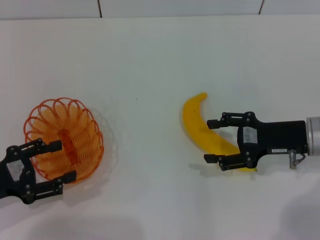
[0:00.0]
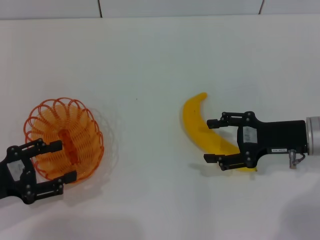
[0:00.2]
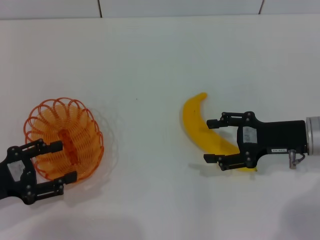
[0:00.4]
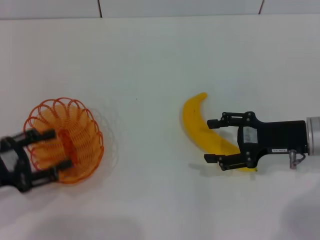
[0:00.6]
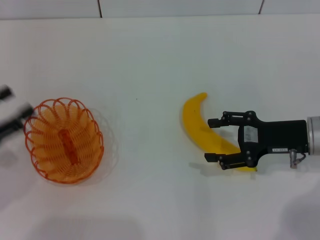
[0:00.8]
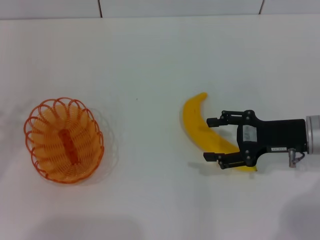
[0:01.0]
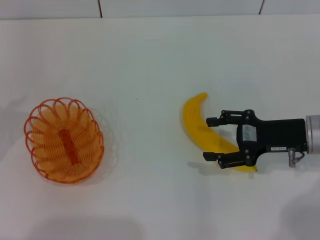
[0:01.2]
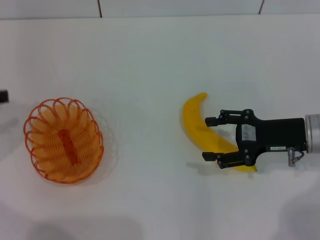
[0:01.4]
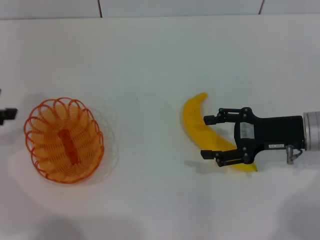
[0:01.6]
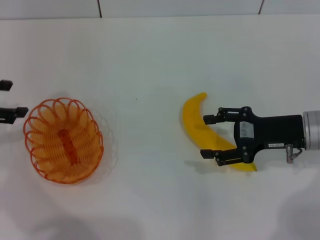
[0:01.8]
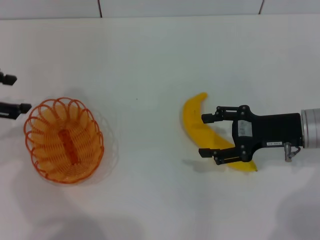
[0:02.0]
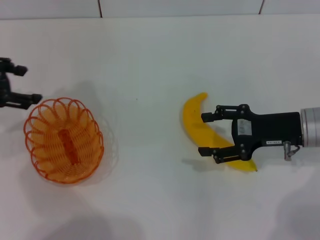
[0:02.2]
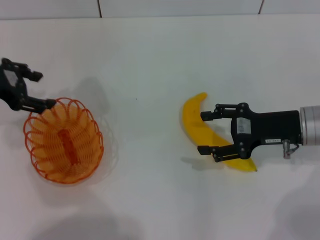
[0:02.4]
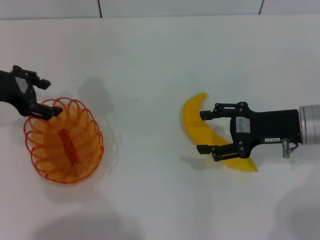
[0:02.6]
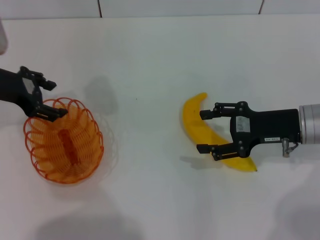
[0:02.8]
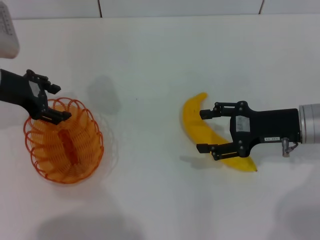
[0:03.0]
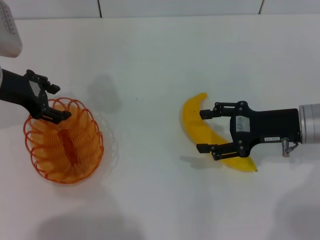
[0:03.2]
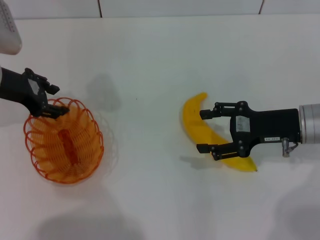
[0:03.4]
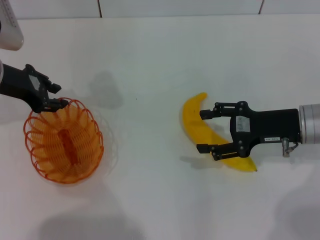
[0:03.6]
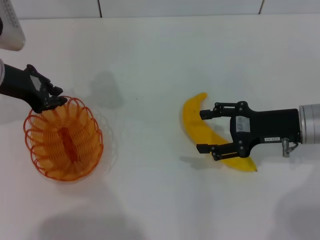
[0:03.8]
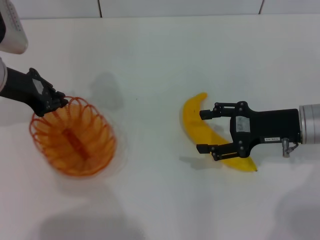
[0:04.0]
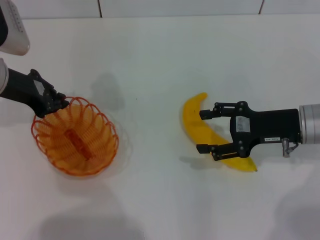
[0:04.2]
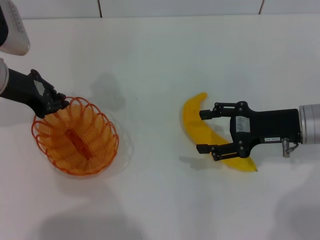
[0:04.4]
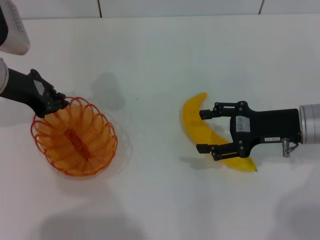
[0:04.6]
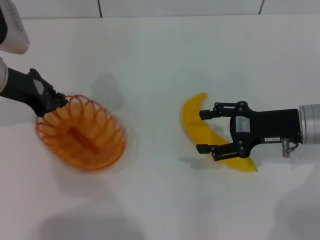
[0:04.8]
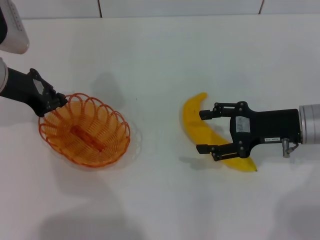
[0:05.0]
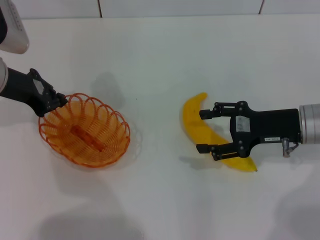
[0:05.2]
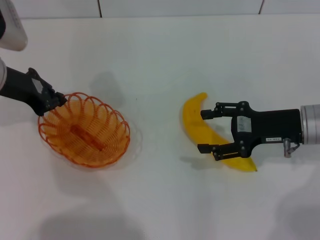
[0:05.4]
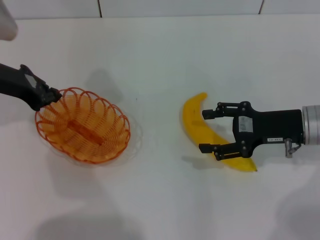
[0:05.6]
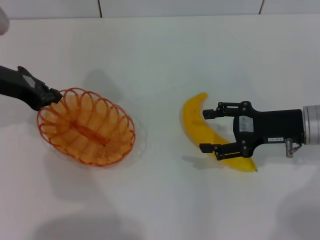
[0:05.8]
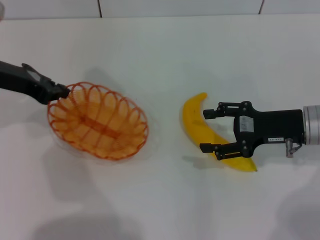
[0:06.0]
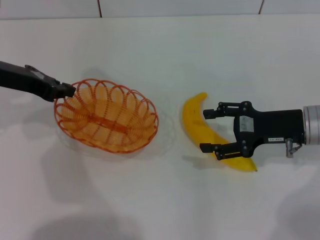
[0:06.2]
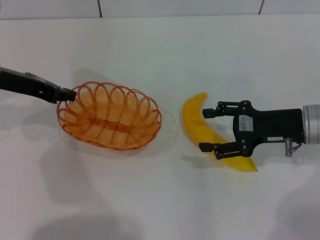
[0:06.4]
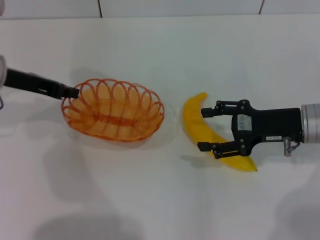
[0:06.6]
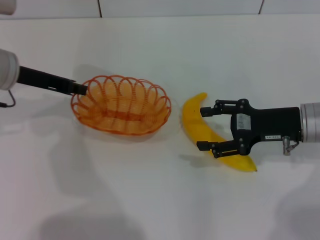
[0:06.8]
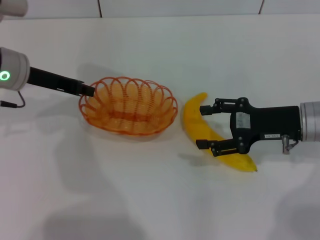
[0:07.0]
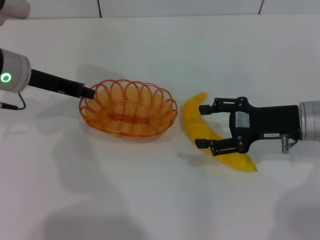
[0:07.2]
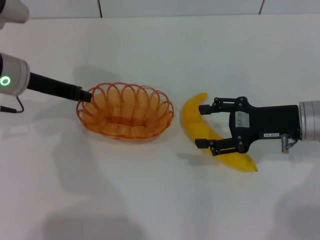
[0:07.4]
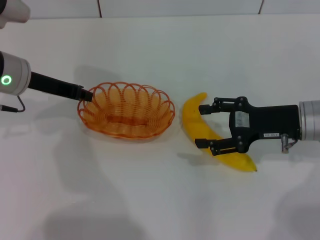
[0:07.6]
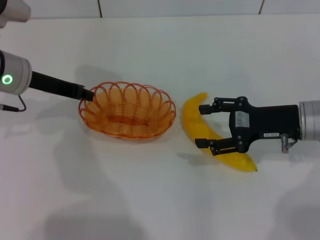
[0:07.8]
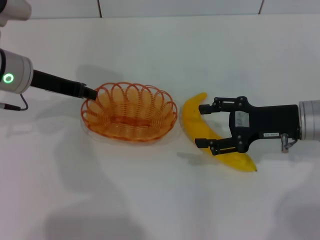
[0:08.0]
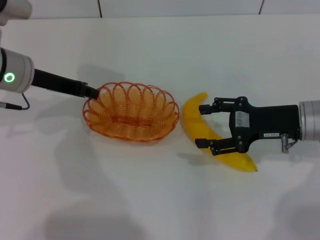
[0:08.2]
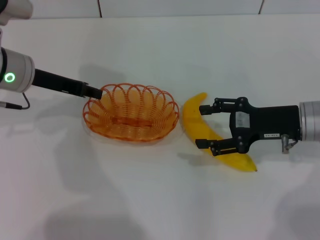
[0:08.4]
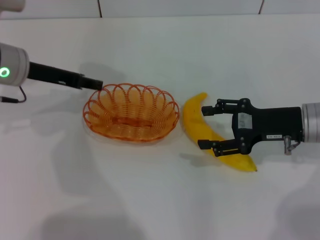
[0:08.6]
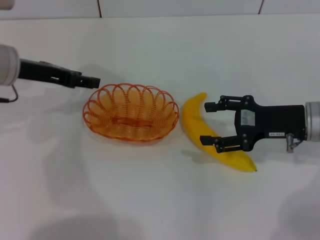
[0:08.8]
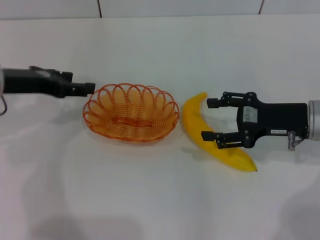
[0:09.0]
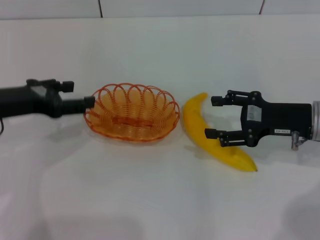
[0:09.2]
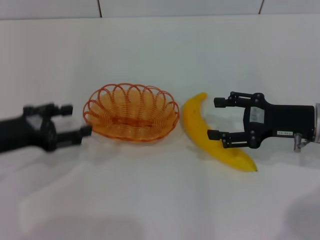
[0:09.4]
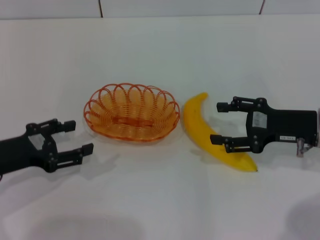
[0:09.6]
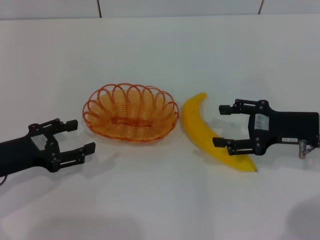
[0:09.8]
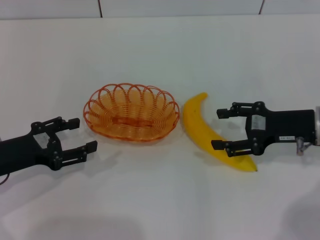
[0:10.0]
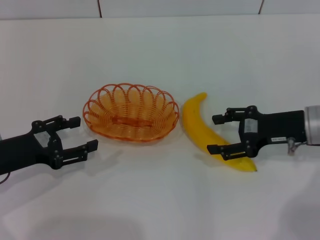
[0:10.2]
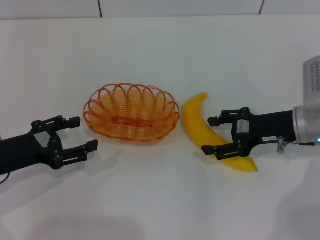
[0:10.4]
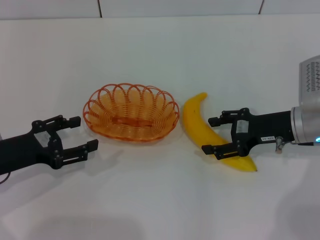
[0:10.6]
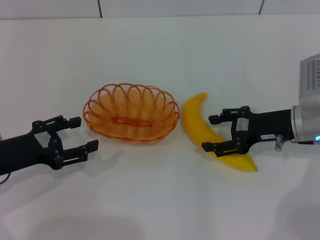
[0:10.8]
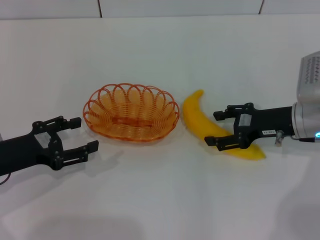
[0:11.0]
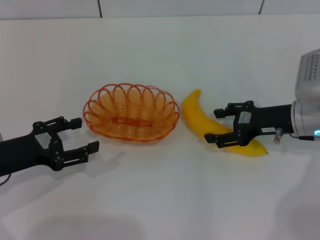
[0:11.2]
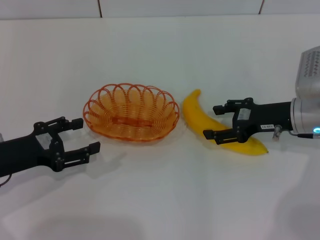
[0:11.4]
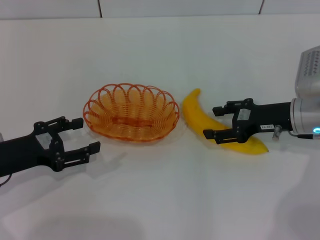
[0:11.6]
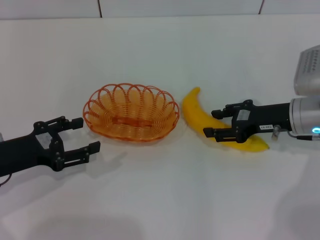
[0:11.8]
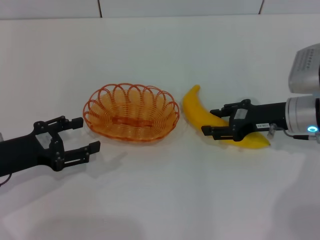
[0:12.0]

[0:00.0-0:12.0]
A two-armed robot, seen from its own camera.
Step, 0:00.0 to 0:05.6: Pick up the basket with the left gripper.
Step, 0:05.8 to 0:08.6: Place the basket in the center of view with the left gripper.
0:00.0 to 0:01.6: The left gripper shifts roughly 15 cm upward and forward.
0:01.6 to 0:03.0: The left gripper is displaced to the right and forward by some 10 cm.
0:03.0 to 0:04.4: The left gripper closes up.
0:07.6 to 0:09.0: The left gripper opens up.
0:09.0 to 0:10.4: The left gripper travels backward and downward by roughly 15 cm.
0:10.4 to 0:12.0: The right gripper closes.

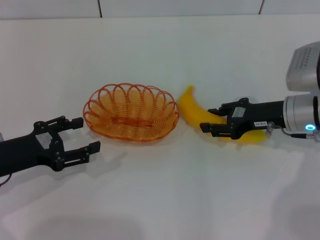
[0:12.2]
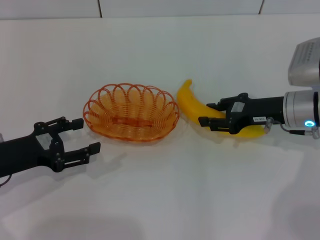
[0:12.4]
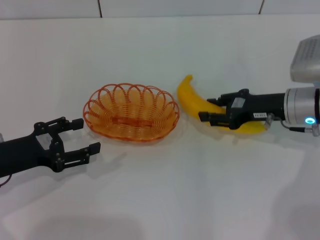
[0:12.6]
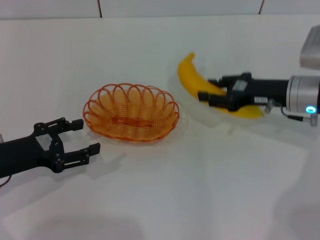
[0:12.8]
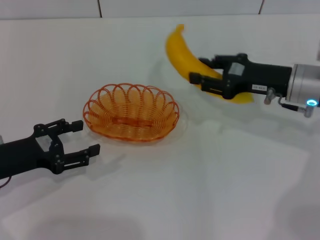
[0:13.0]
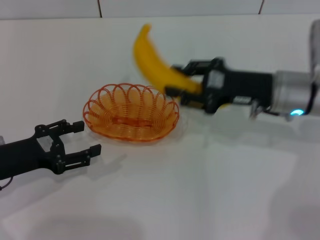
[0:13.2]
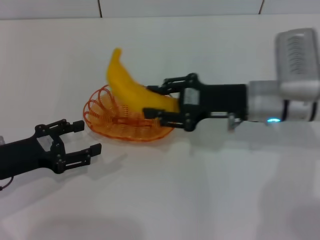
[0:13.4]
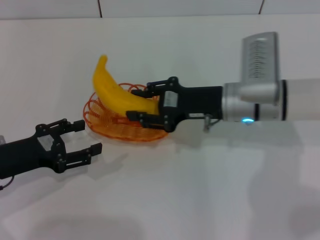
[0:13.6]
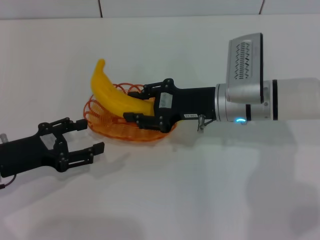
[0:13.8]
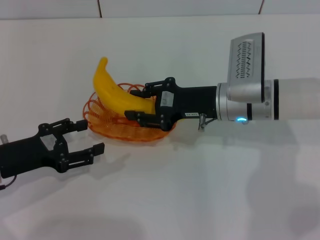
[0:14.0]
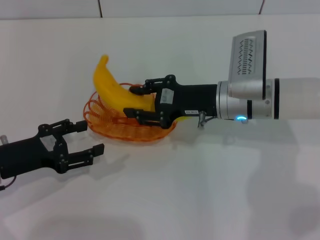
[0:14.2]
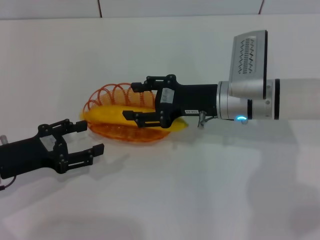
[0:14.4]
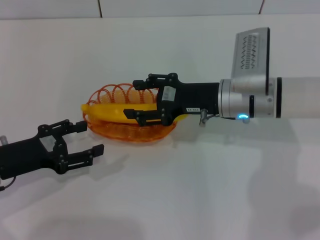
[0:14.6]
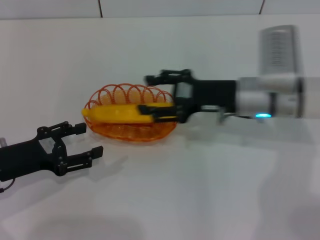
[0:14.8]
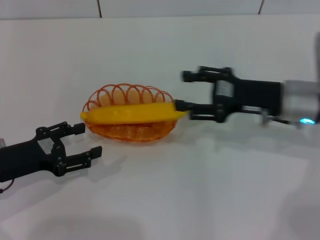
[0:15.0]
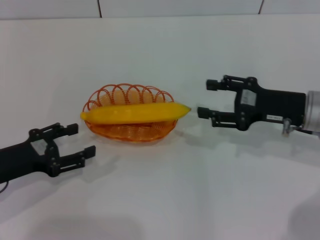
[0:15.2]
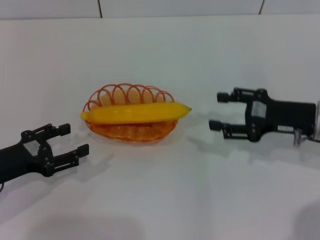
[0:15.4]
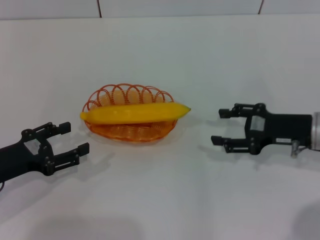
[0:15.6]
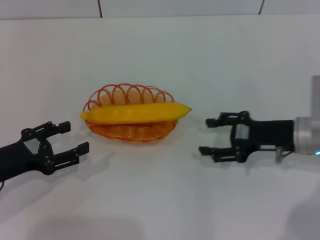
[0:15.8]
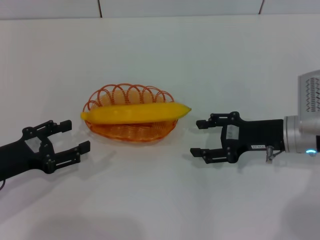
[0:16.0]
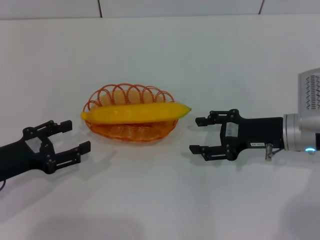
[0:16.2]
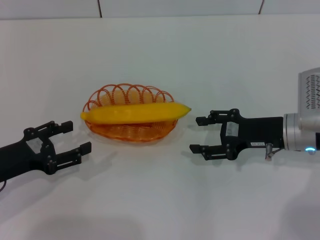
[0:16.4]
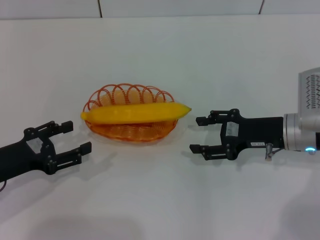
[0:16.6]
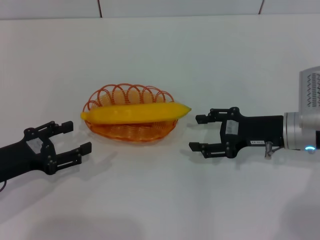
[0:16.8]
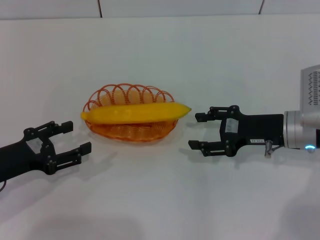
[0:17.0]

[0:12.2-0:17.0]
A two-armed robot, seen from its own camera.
Step, 0:12.8 to 0:14.6: Place the banana into the basket with the right gripper.
0:12.2 to 0:13.8: The right gripper heads to the left, covering roughly 10 cm, and closes its fingers.
0:13.8 to 0:15.4: The right gripper is displaced to the right by some 15 cm, and opens up.
0:15.4 to 0:17.0: The grippers move only a little.
